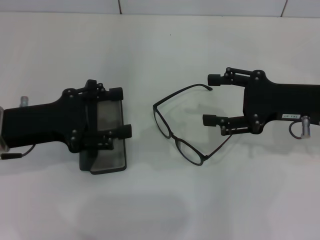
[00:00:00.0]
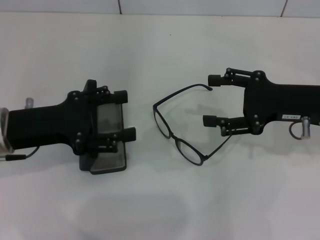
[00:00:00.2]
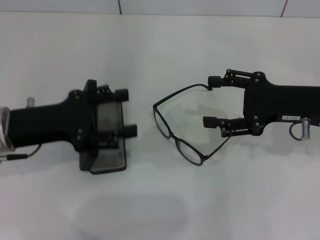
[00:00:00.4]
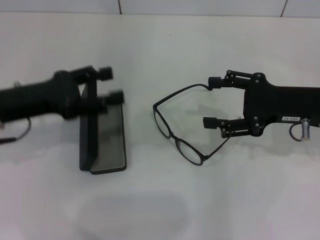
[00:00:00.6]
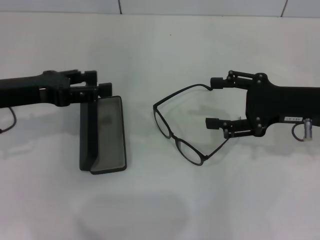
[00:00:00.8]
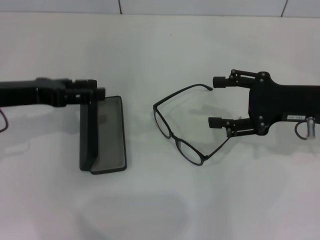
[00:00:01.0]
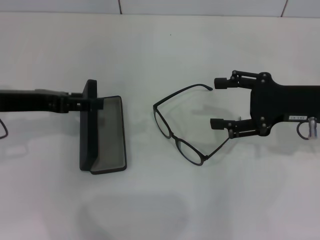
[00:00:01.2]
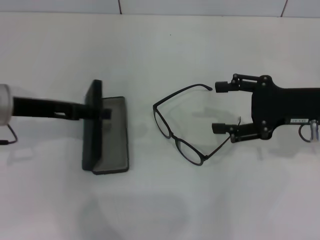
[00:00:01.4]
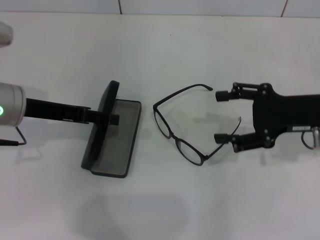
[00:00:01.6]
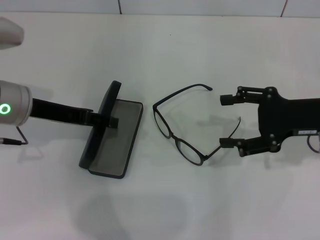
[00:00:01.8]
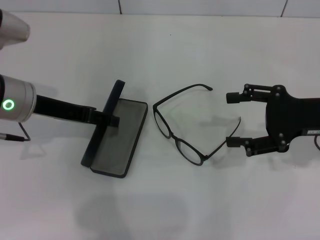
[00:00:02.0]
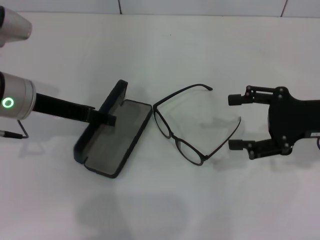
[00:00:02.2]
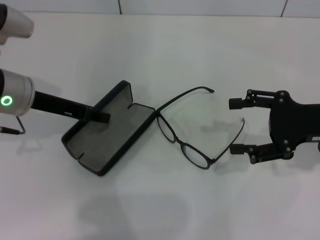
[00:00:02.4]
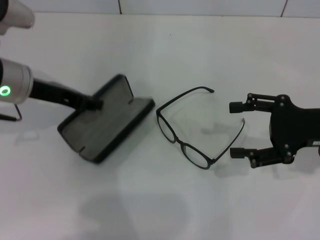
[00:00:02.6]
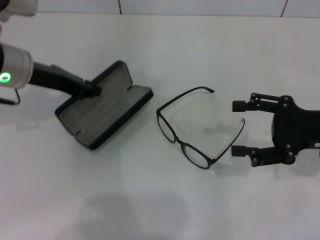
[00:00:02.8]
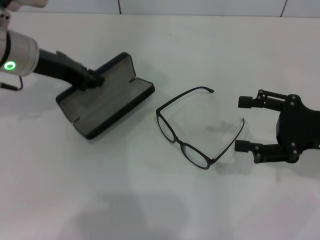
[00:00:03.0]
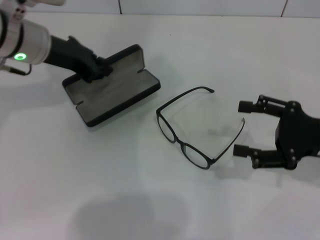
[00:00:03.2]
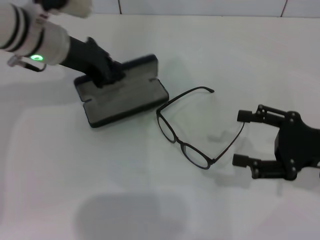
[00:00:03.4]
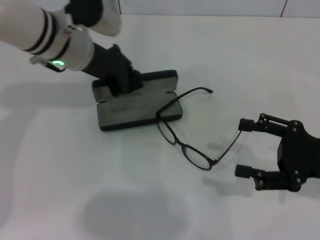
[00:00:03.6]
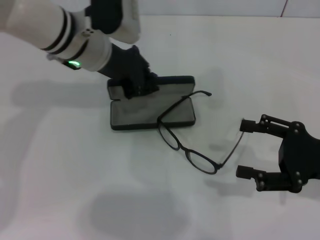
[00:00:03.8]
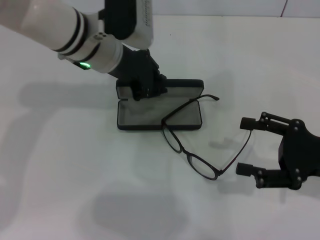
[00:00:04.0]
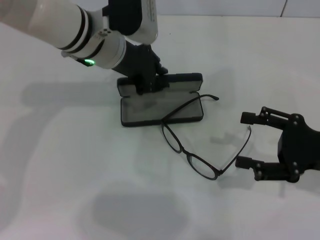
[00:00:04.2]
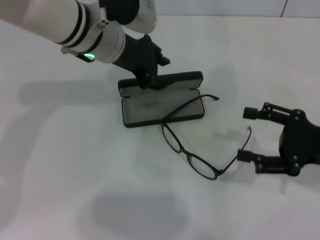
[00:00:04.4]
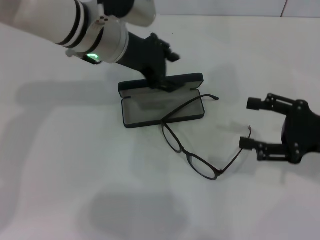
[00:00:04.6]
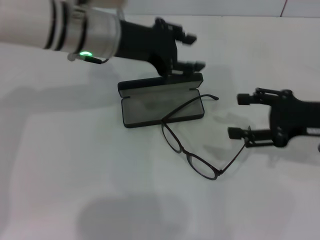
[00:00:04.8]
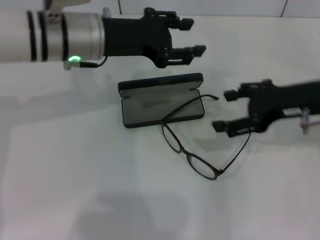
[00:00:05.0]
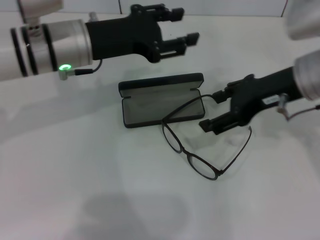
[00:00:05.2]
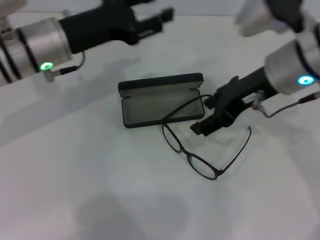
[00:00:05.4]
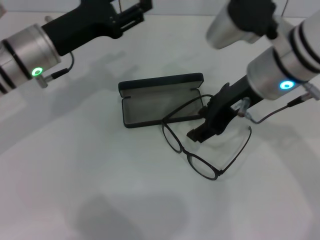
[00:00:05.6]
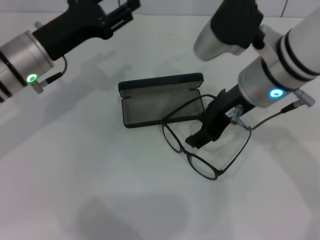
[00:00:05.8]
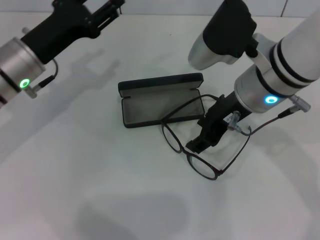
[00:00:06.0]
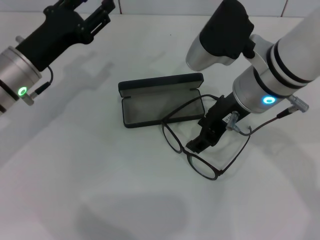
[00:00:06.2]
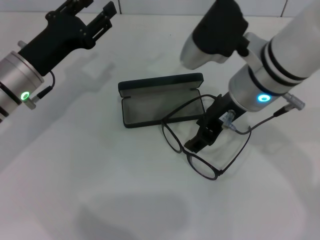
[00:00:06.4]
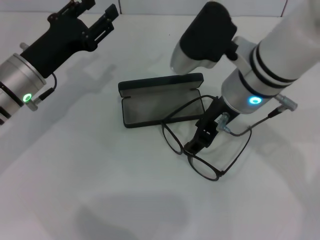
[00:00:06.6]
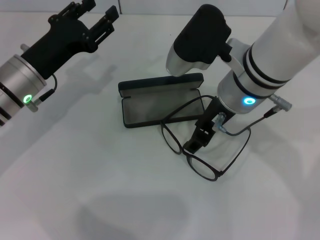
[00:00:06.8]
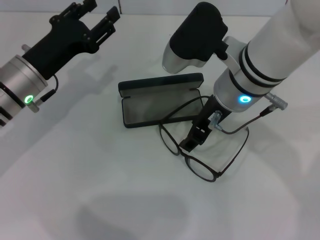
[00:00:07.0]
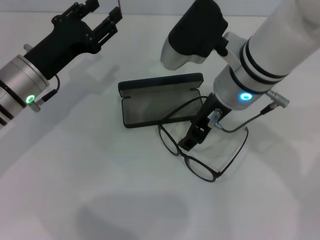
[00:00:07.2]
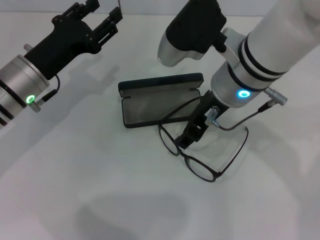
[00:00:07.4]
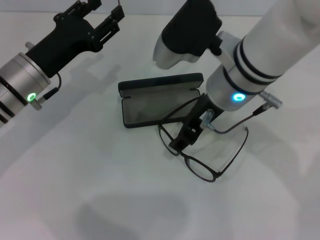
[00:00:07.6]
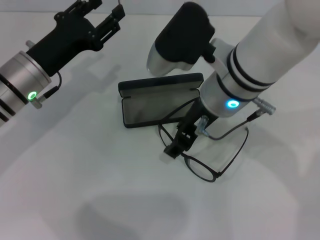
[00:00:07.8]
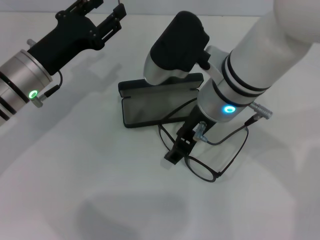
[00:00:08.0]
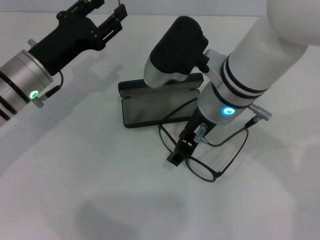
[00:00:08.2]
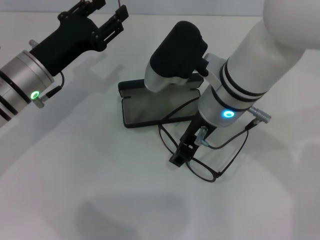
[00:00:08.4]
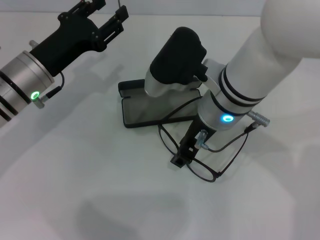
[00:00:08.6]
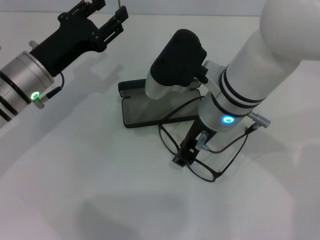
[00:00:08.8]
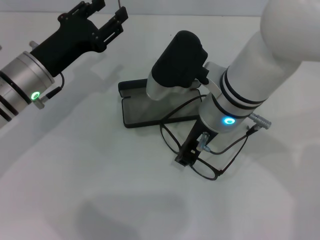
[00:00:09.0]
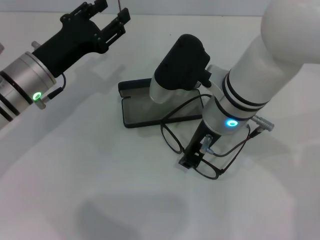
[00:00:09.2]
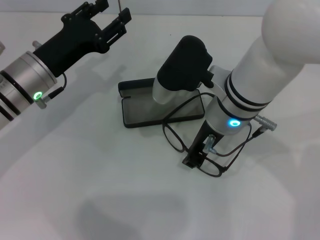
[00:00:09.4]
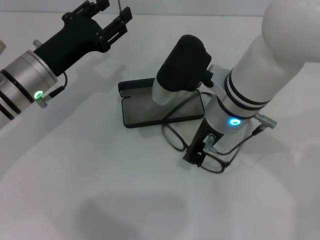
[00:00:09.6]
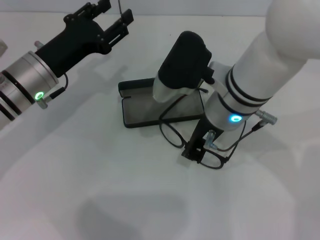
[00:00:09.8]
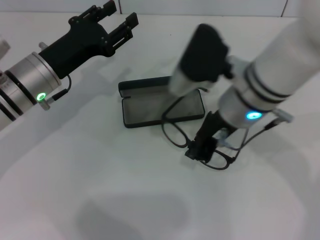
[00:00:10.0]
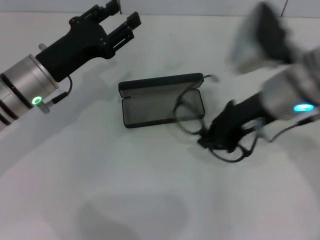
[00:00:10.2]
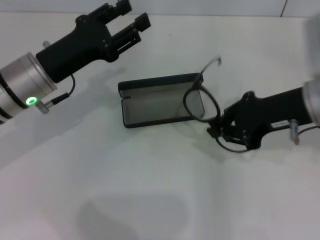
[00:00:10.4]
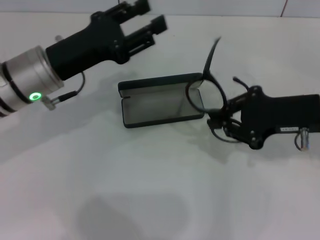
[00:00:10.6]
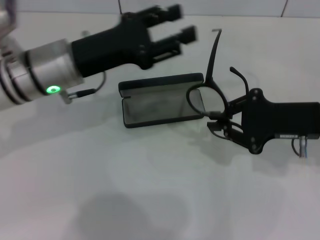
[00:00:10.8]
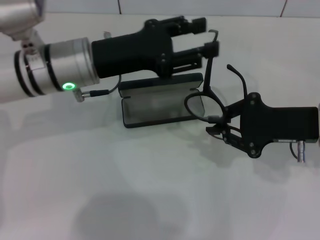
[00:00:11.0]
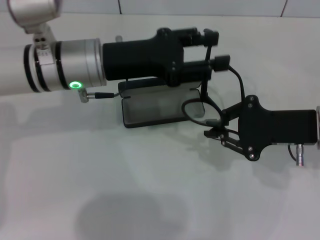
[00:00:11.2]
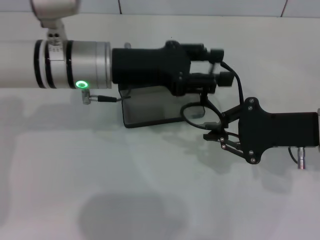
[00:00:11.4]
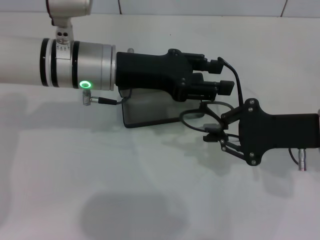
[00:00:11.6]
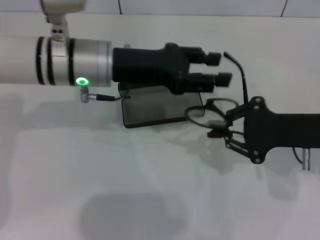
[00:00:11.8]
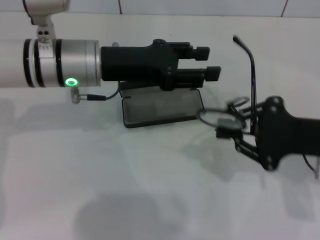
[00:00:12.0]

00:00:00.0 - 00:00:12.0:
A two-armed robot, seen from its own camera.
Step, 00:00:00.0 - 00:00:02.2: Grab the glasses case with your left hand.
Step, 00:00:02.4 - 00:00:04.2: Place the glasses case in the center of the table with your left hand.
Step, 00:00:04.6 - 00:00:09.4: Grab the eyeglass frame with your right hand.
00:00:00.0 - 00:00:01.6: The left gripper moves some 5 cm.
00:00:01.6 - 00:00:03.0: The left gripper heads forward, covering approximately 5 cm, and closes its fingers.
00:00:03.0 - 00:00:04.4: The left gripper travels to the right by some 10 cm.
00:00:04.4 - 00:00:06.0: The left gripper goes some 15 cm to the left, downward and backward, and opens its fingers, while the right gripper travels to the left and upward by about 20 cm.
00:00:07.6 - 00:00:09.0: The right gripper closes.
00:00:09.0 - 00:00:10.4: The right gripper goes approximately 15 cm to the right.
00:00:10.4 - 00:00:12.0: The right gripper shifts by about 10 cm. Meanwhile the left gripper moves to the right, some 5 cm.

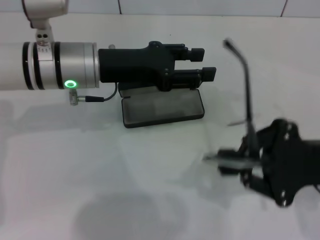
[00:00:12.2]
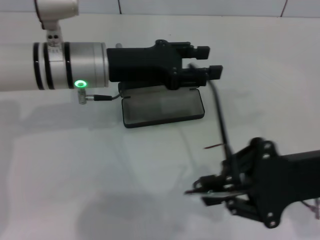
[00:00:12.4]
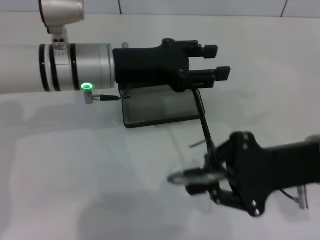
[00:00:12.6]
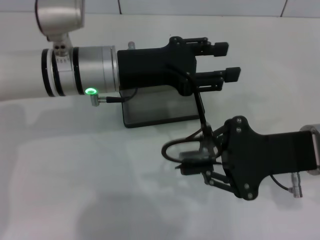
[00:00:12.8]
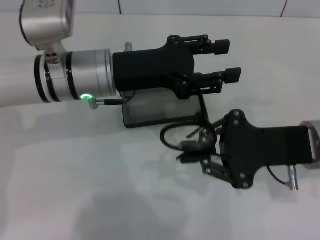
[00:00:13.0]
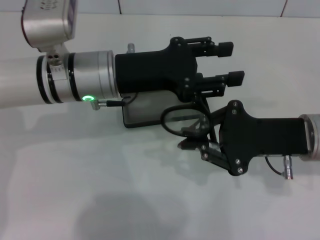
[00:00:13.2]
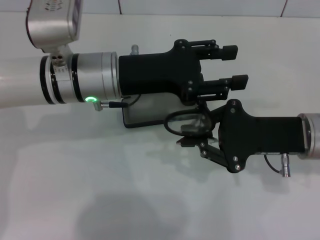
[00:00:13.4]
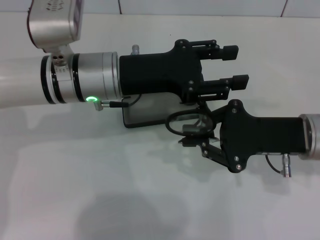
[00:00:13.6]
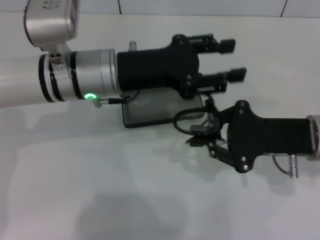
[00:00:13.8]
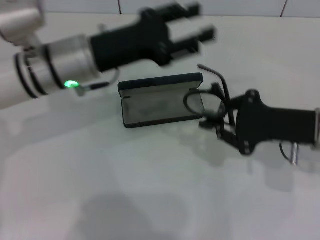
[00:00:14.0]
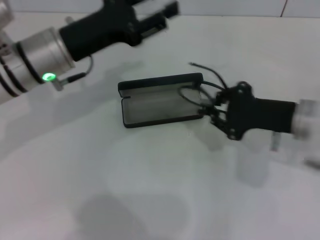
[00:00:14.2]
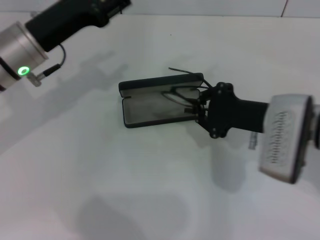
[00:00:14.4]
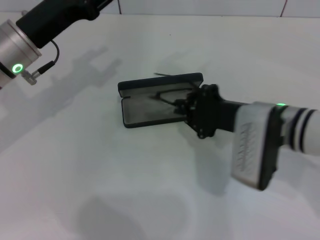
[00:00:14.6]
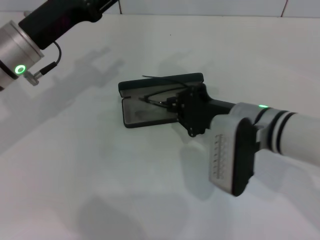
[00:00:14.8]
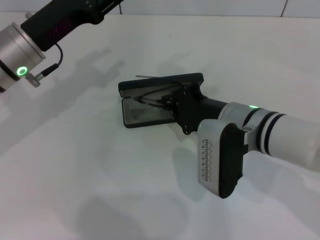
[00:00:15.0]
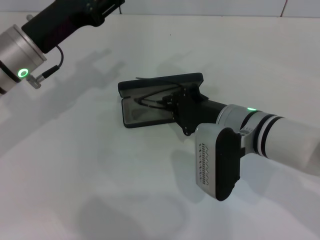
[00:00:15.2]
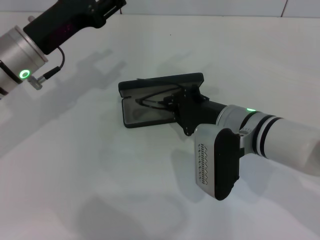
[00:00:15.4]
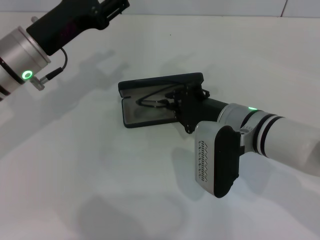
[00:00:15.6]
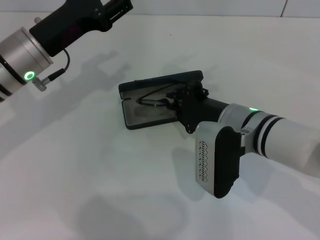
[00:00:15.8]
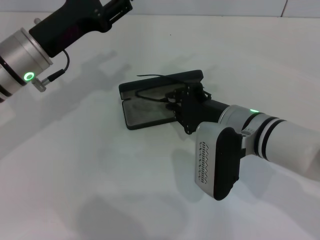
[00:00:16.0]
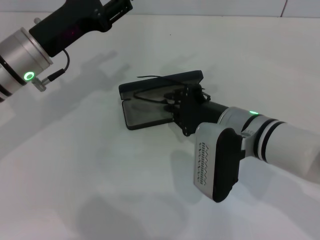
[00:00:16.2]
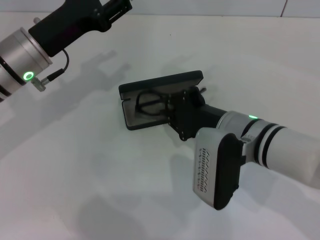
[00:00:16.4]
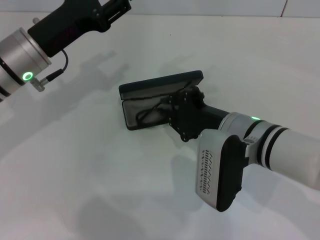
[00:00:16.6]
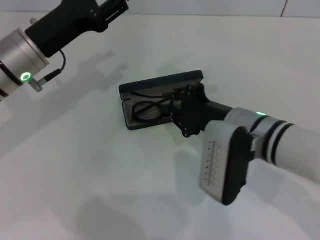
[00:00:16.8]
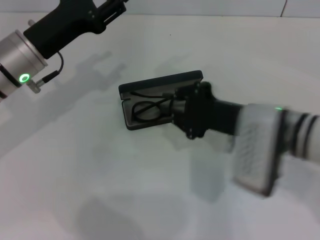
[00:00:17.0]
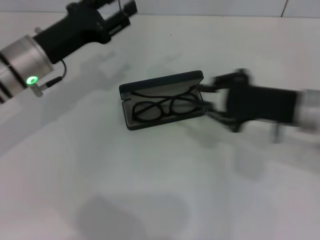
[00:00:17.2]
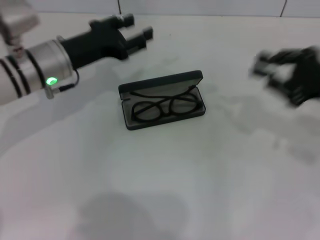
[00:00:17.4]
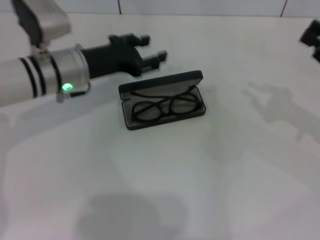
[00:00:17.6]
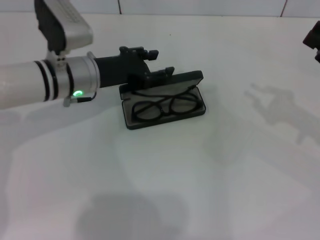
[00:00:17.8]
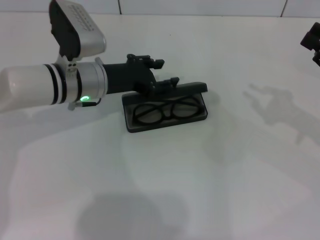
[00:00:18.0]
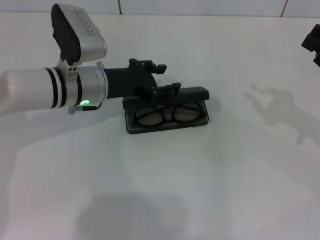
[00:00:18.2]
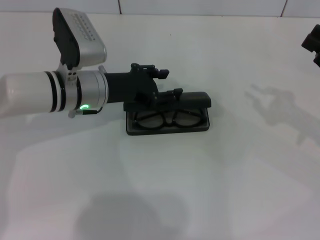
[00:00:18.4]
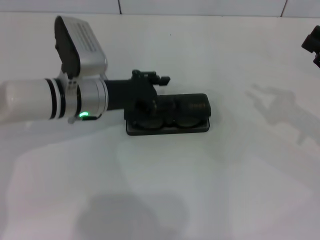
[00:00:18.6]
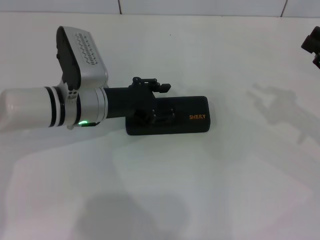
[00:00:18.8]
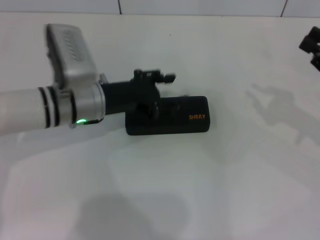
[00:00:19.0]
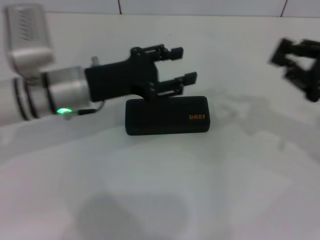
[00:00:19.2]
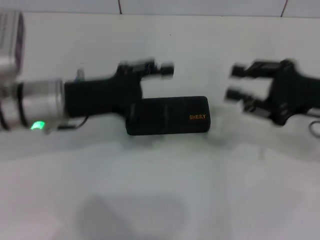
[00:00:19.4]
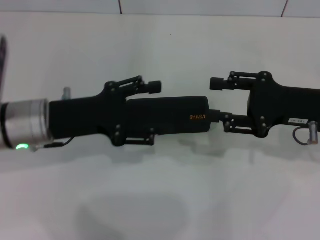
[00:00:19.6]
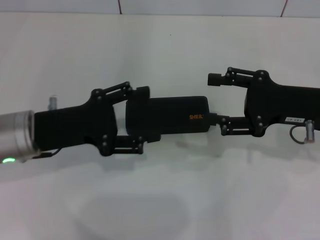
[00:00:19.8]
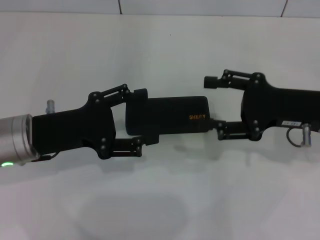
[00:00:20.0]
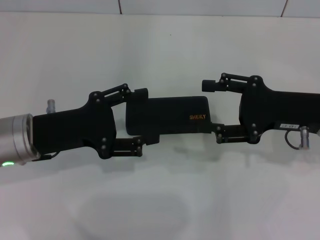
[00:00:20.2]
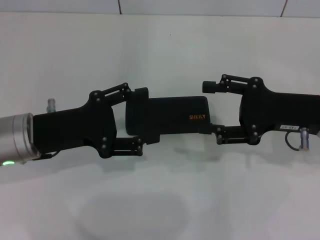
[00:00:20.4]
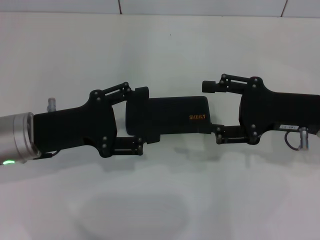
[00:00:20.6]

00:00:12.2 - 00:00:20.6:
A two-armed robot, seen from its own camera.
Step, 00:00:13.8 - 00:00:16.8: Put the glasses into the case with your right hand.
Step, 00:00:17.0 - 00:00:18.6: Close the glasses case with your left hand.
00:00:12.2 - 00:00:13.6: The right gripper ends up roughly 5 cm from where it was.
00:00:13.6 - 00:00:15.0: The grippers both shift to the left by some 10 cm.
00:00:15.0 - 00:00:16.4: There are only small adjustments of the grippers.
00:00:16.4 - 00:00:17.8: The left gripper ends up some 5 cm from where it was, while the right gripper travels to the right by some 25 cm.
00:00:17.8 - 00:00:19.2: The left gripper shifts by approximately 5 cm.
00:00:19.2 - 00:00:20.6: The right gripper is displaced to the left by roughly 5 cm, and opens up, while the left gripper goes some 10 cm backward and to the left.
